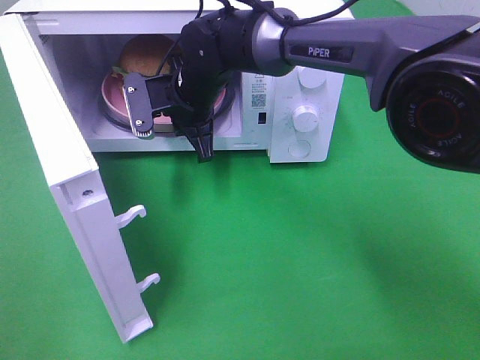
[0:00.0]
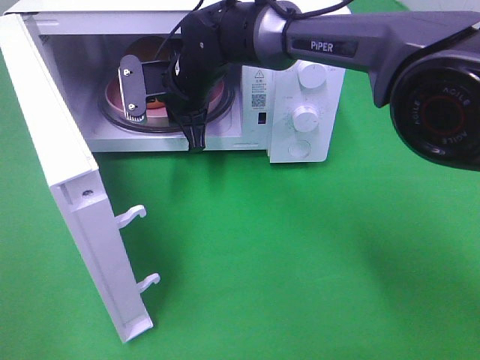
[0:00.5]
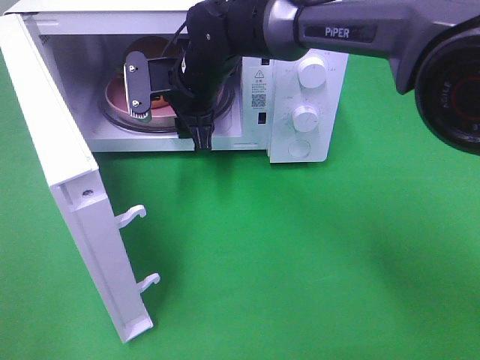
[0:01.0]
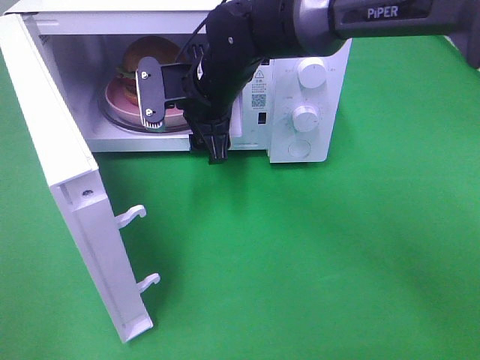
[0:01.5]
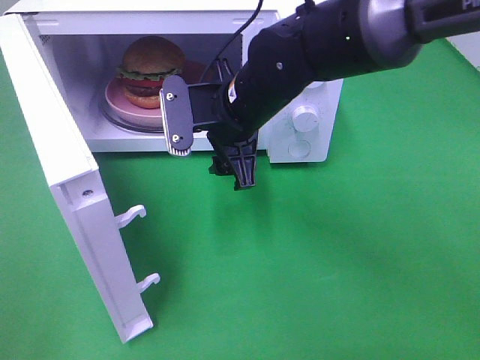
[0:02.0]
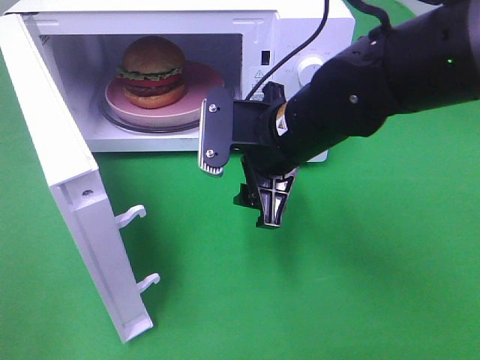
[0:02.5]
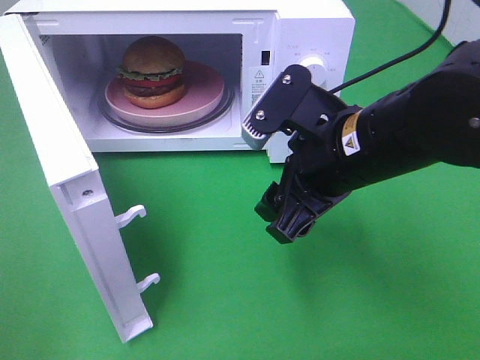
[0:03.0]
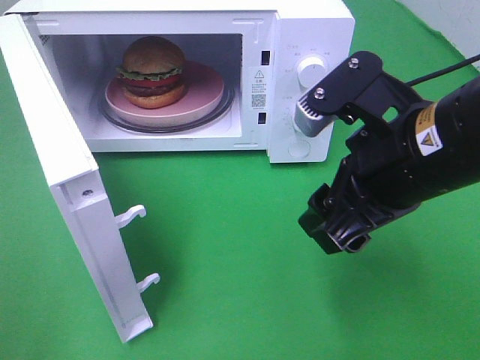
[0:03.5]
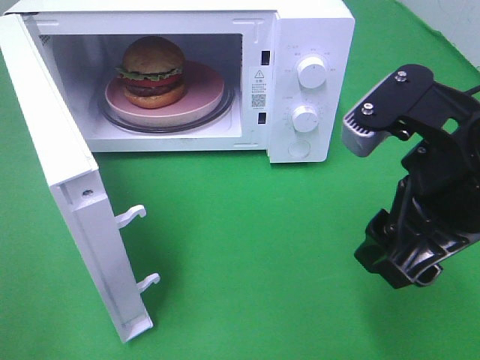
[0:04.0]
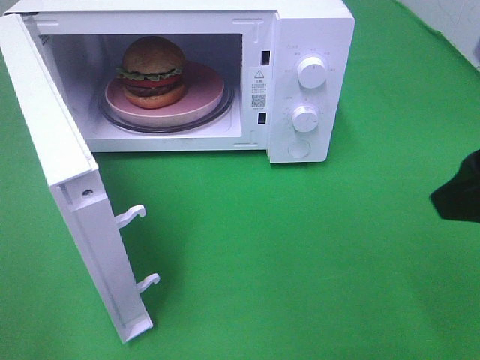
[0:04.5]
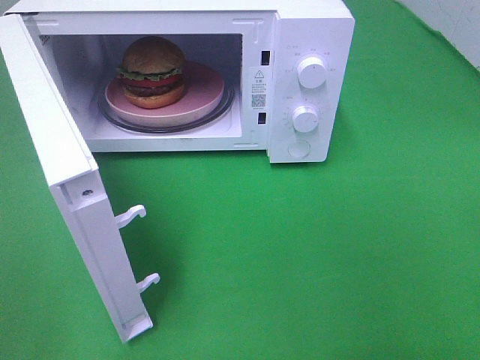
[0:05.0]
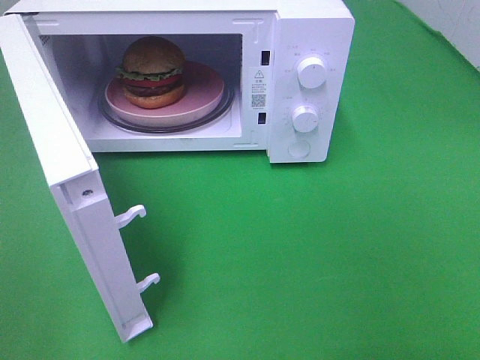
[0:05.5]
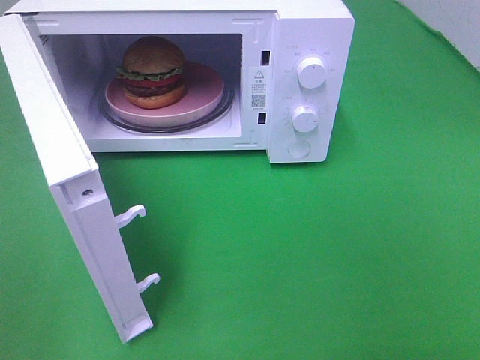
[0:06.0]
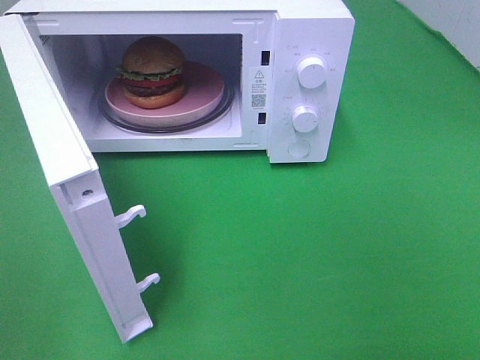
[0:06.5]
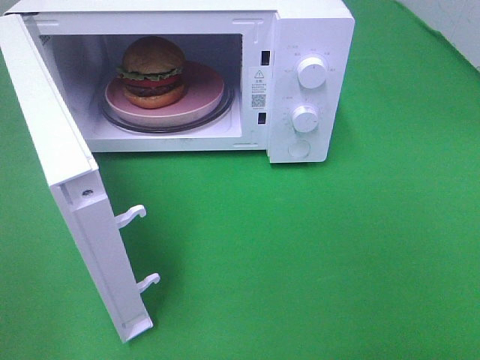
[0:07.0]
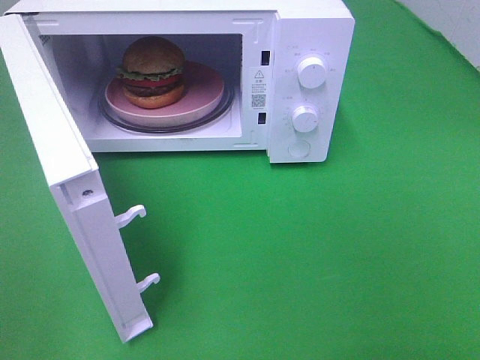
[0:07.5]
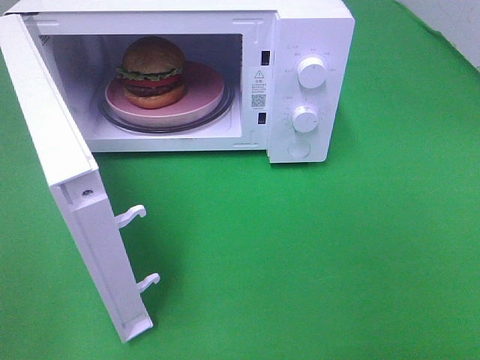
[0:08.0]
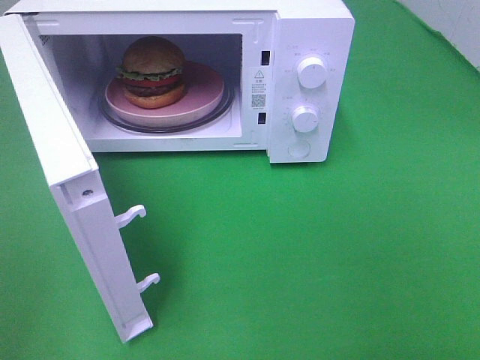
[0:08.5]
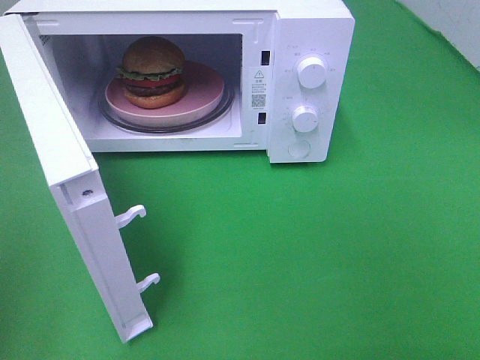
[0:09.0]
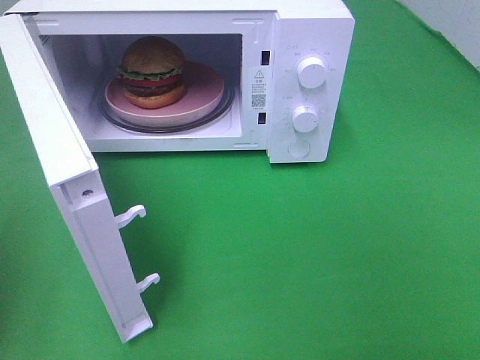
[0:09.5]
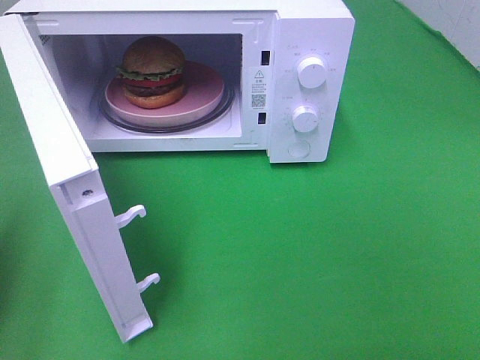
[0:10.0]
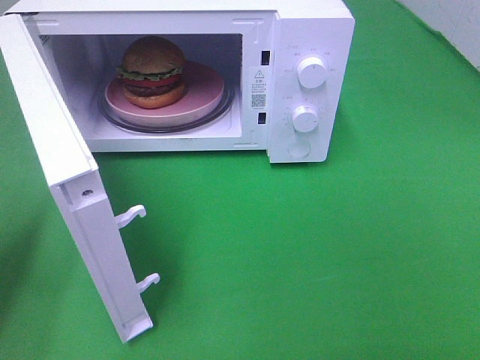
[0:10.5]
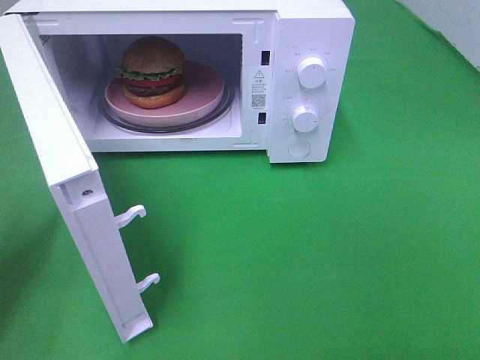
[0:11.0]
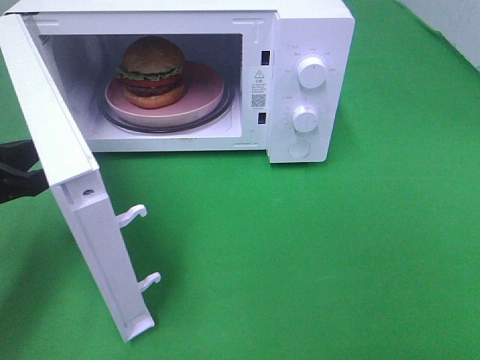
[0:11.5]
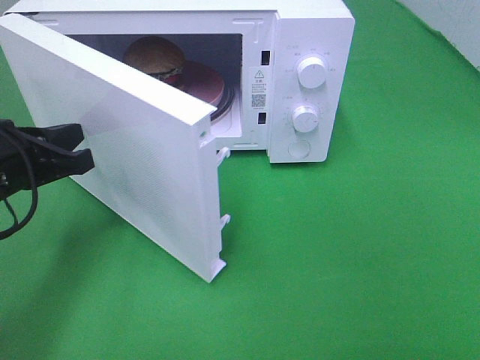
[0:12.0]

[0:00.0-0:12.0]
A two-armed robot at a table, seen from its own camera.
Task of the whole recording: Heat the burger.
0:00.0 to 0:02.0: The right gripper is displaced backward and to the right by some 10 cm, and opens its fingers.
0:02.0 to 0:04.0: The right gripper goes approximately 25 cm backward, to the right and upward.
0:04.0 to 0:06.0: The right gripper is displaced backward and to the right by approximately 20 cm.
0:06.0 to 0:08.0: Both grippers stay about where they are.
0:08.0 to 0:10.0: The left gripper heads forward, covering roughly 20 cm, and closes.
0:10.0 to 0:12.0: The left gripper moves to the right, forward and downward, some 15 cm.

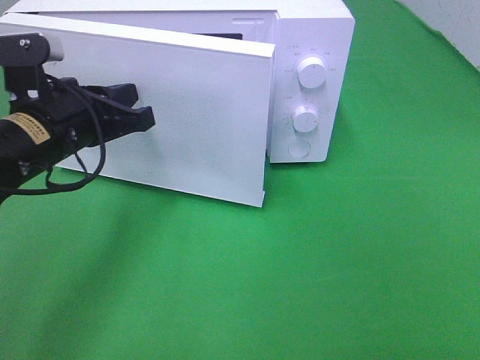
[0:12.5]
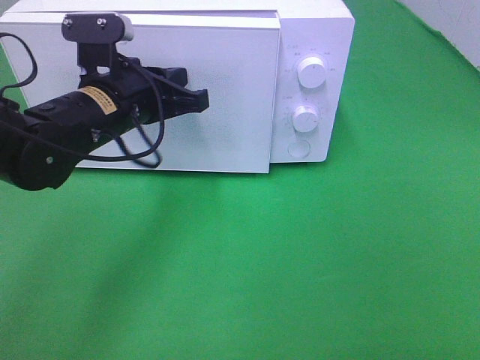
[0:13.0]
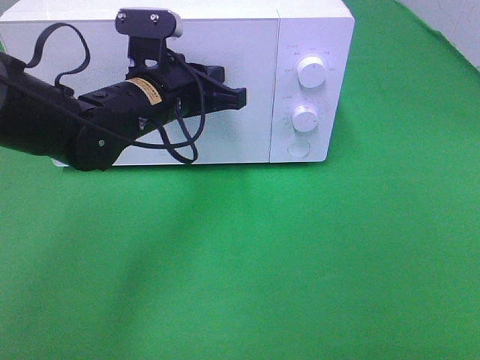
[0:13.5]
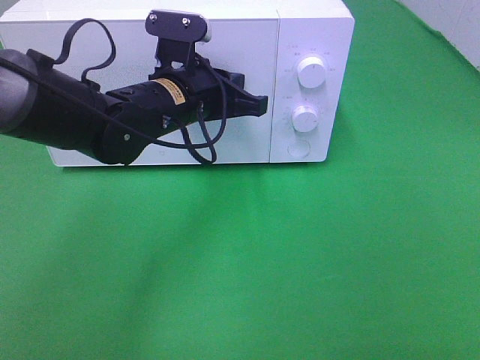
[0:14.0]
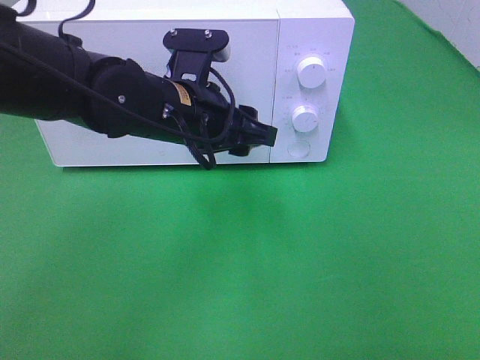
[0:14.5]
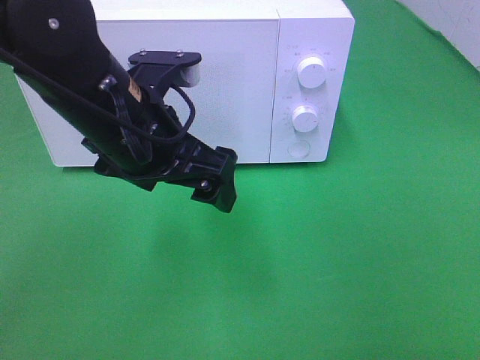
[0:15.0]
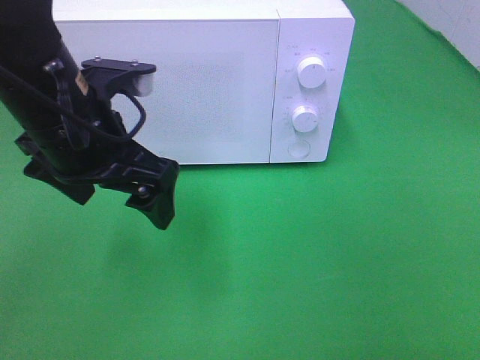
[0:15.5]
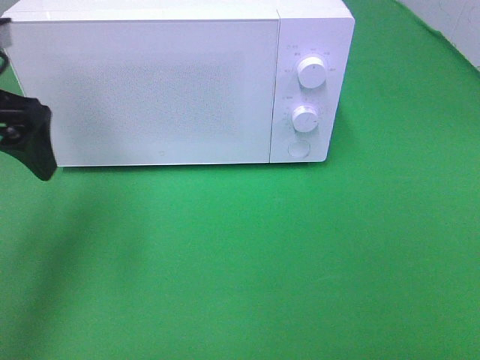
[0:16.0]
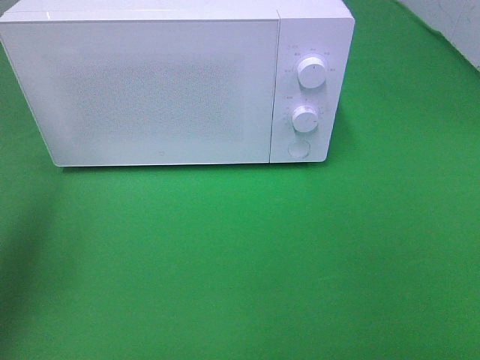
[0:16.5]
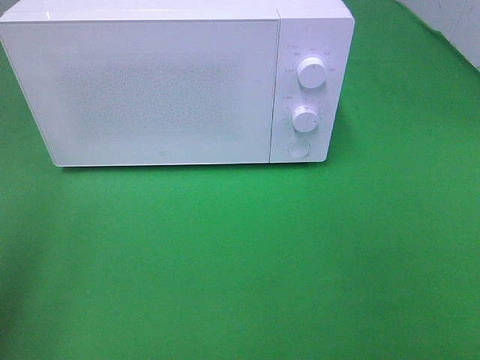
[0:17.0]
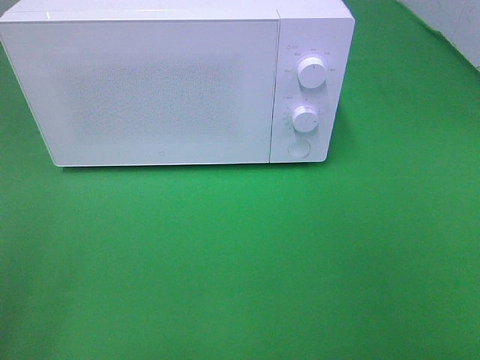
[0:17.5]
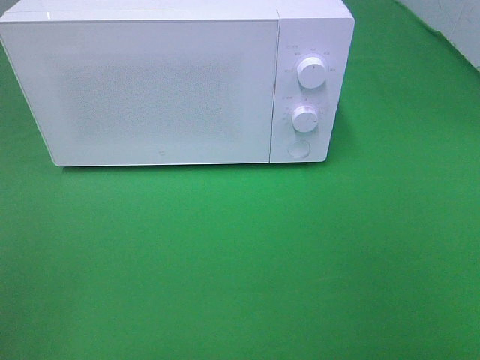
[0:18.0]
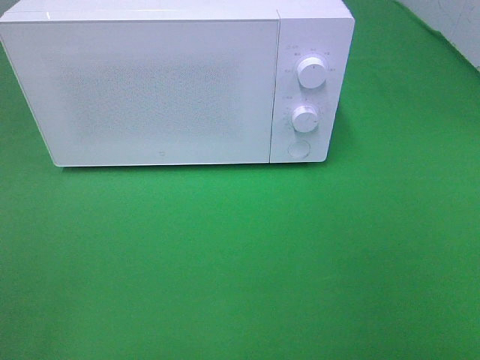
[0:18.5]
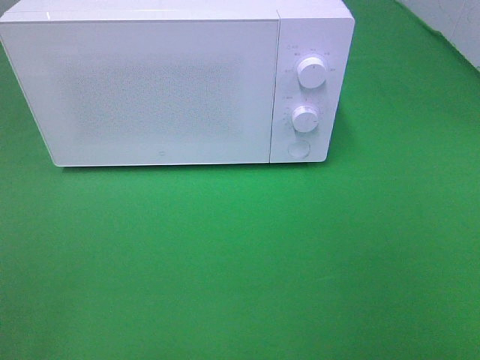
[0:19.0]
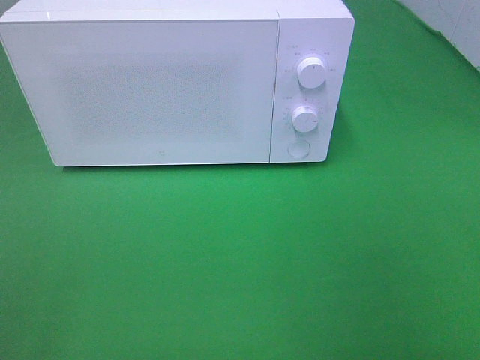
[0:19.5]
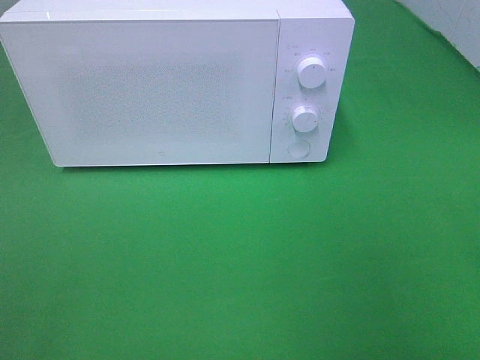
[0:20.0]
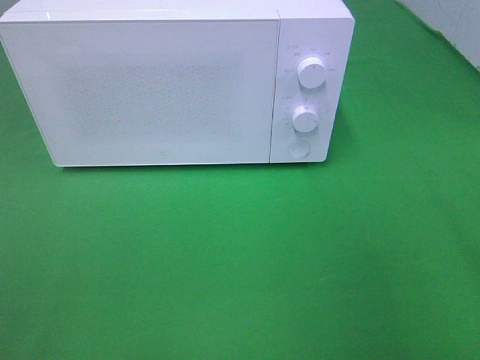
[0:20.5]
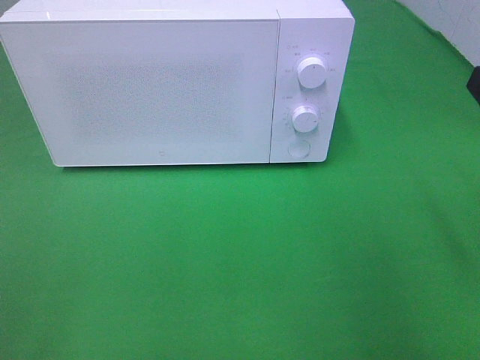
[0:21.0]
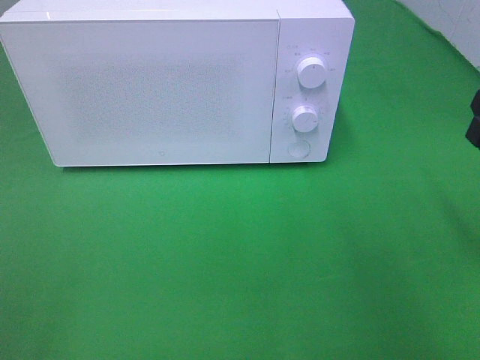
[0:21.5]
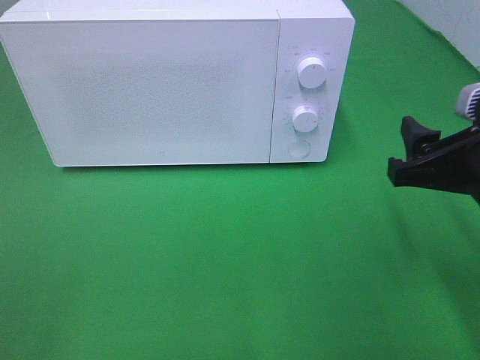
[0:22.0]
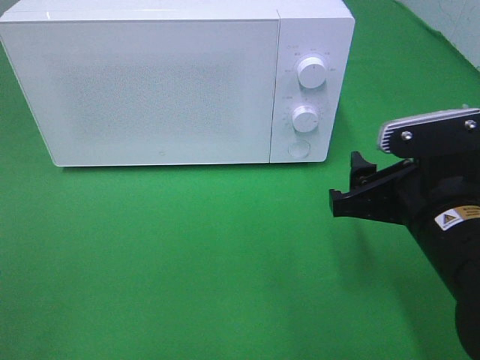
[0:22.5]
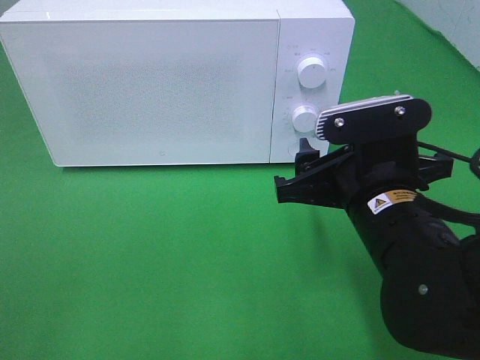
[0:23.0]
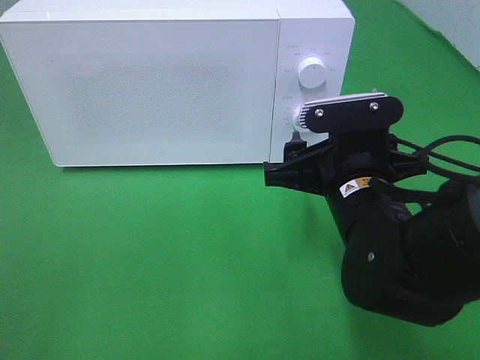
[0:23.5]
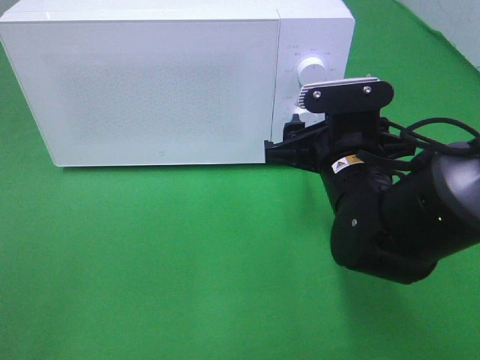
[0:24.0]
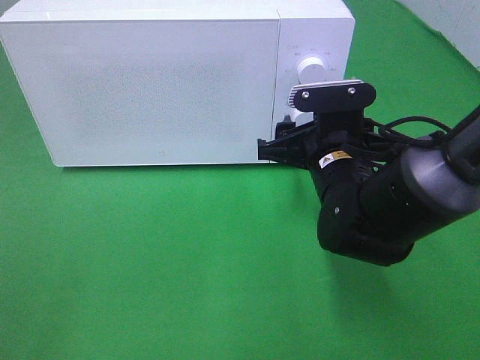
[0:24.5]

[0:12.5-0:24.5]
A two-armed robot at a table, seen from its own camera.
Task of the whole recording: Heat the burger.
Step, 0:12.5 to 0:14.5: Left hand: close the microwave door.
0:12.5 to 0:14.5: The left gripper travels to the right by approximately 10 cm, and opens.
0:14.5 to 0:16.5: The left gripper is displaced to the left and upward by about 30 cm, and opens.
0:16.5 to 0:18.5: The left gripper moves backward, some 25 cm.
0:20.5 to 0:22.5: The right gripper is displaced downward and to the left by roughly 15 cm.
0:22.5 to 0:24.5: The right gripper shifts about 10 cm forward and to the left.

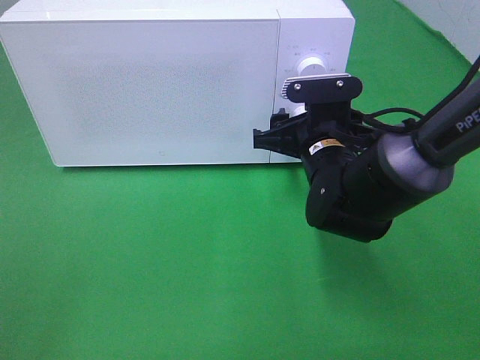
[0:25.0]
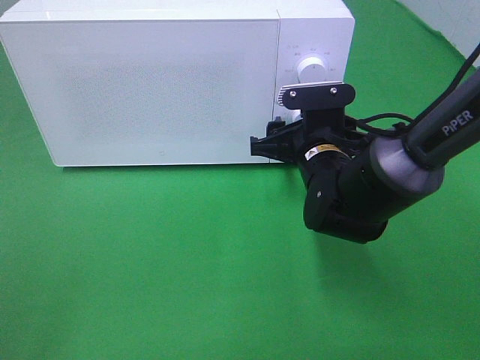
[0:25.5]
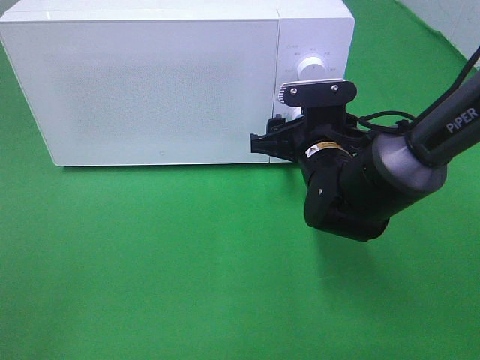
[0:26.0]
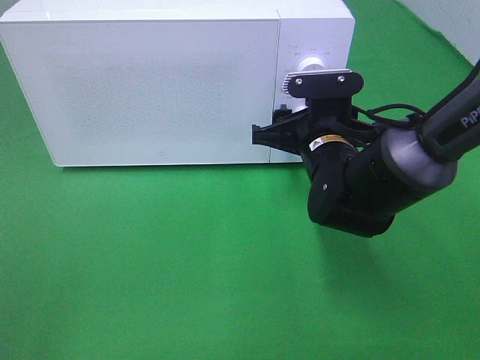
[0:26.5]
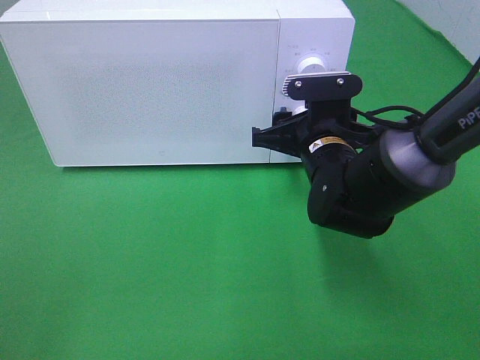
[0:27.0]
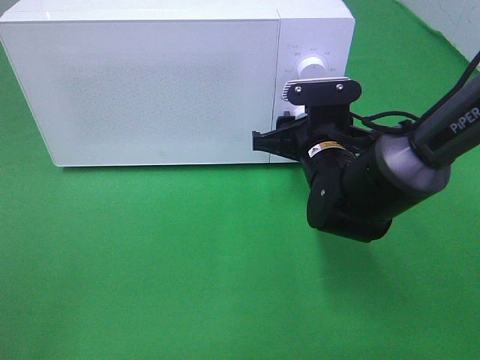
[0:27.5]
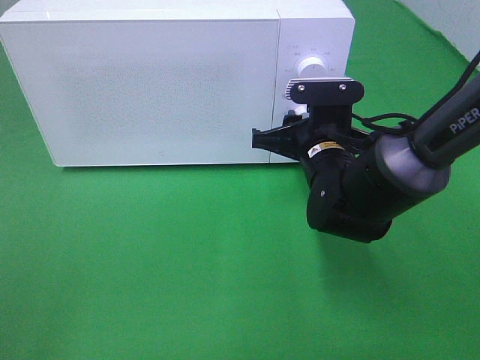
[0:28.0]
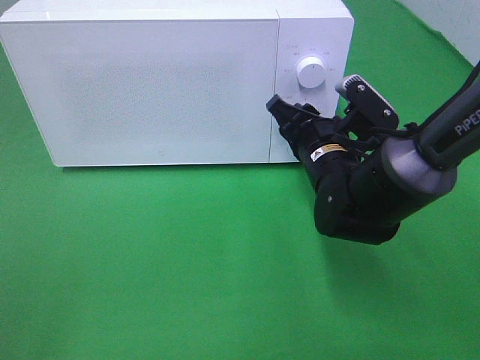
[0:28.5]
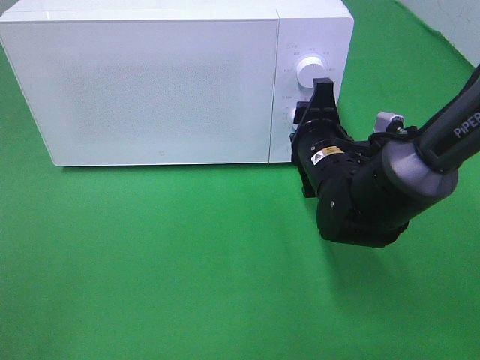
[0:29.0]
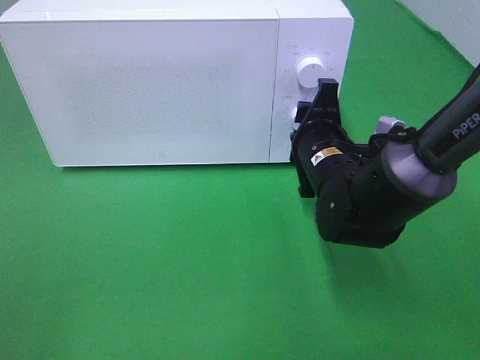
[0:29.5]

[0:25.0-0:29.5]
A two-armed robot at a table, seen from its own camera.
Task of the whole recording: Heat the burger.
0:25.0 to 0:27.0: Both grippers stay about where they are.
